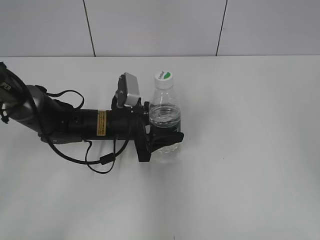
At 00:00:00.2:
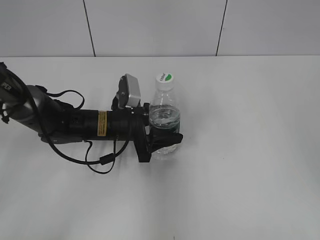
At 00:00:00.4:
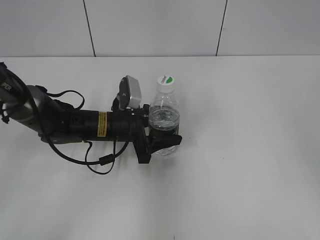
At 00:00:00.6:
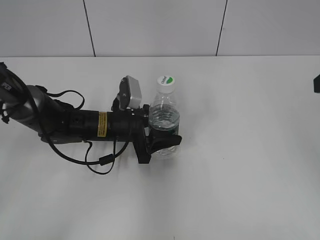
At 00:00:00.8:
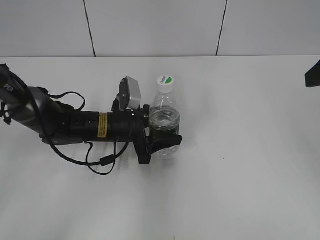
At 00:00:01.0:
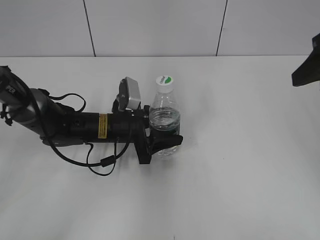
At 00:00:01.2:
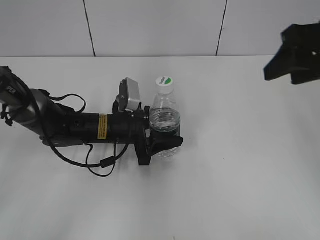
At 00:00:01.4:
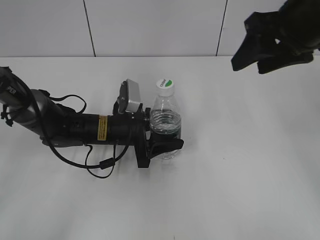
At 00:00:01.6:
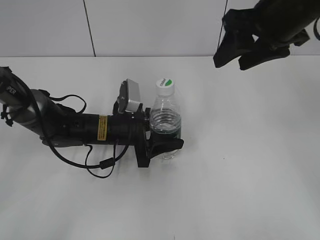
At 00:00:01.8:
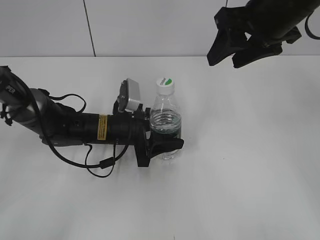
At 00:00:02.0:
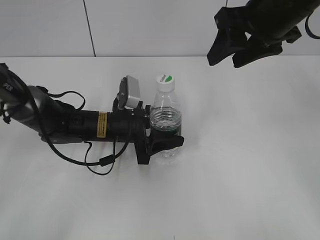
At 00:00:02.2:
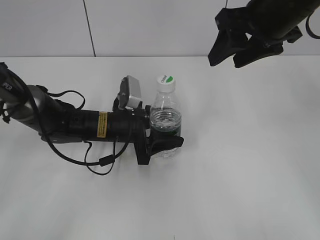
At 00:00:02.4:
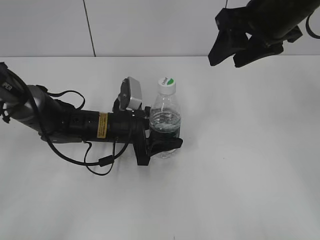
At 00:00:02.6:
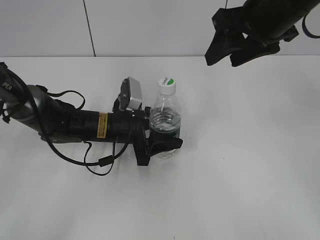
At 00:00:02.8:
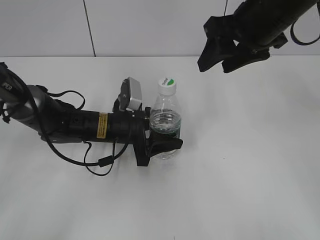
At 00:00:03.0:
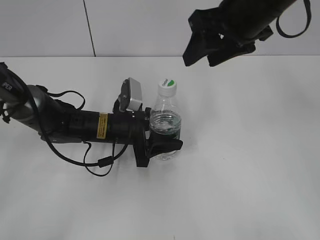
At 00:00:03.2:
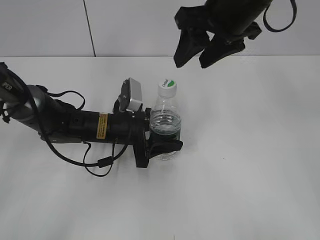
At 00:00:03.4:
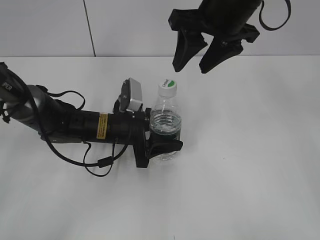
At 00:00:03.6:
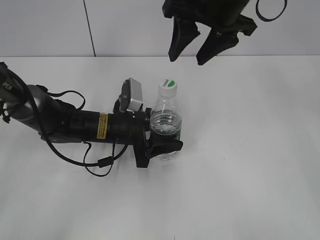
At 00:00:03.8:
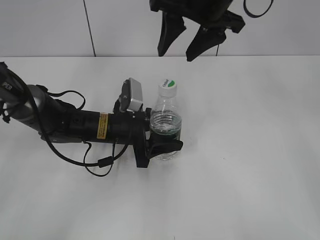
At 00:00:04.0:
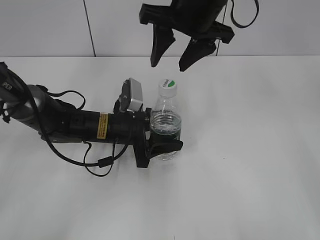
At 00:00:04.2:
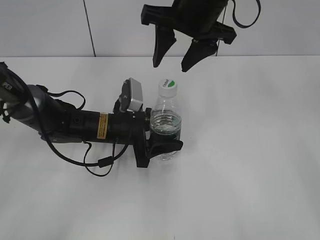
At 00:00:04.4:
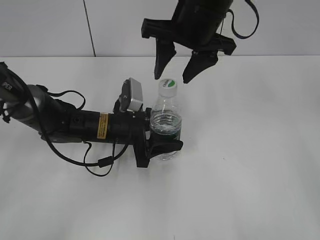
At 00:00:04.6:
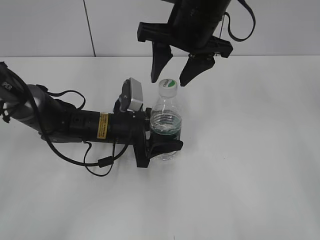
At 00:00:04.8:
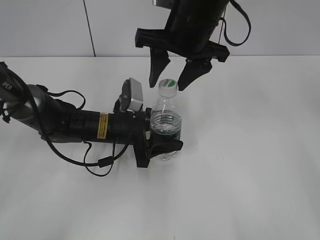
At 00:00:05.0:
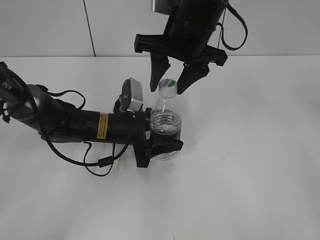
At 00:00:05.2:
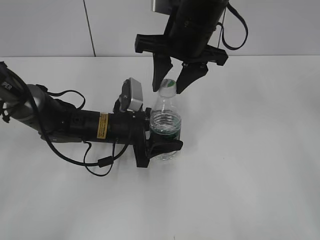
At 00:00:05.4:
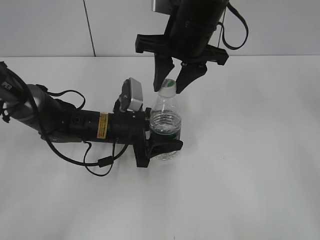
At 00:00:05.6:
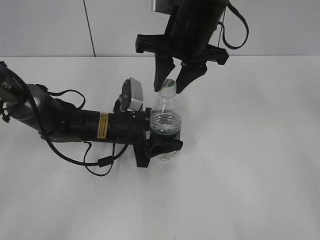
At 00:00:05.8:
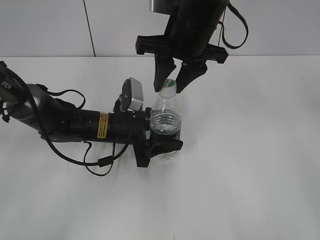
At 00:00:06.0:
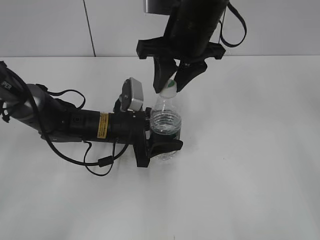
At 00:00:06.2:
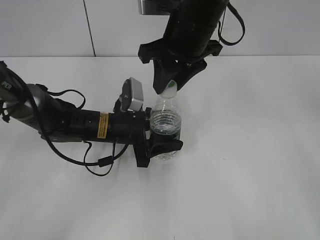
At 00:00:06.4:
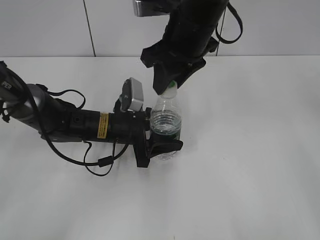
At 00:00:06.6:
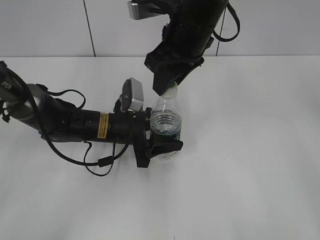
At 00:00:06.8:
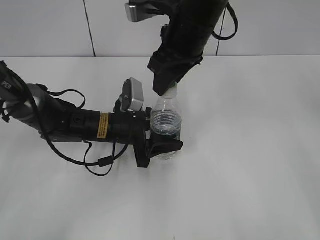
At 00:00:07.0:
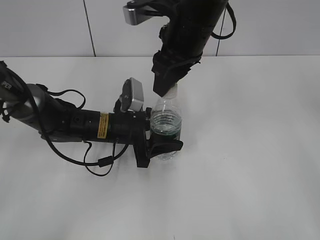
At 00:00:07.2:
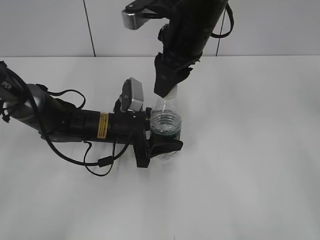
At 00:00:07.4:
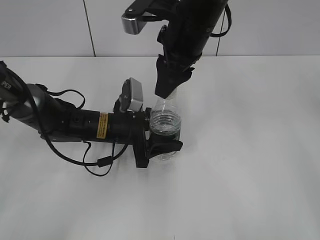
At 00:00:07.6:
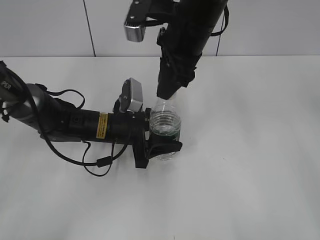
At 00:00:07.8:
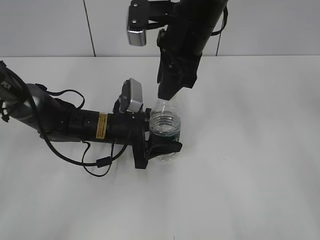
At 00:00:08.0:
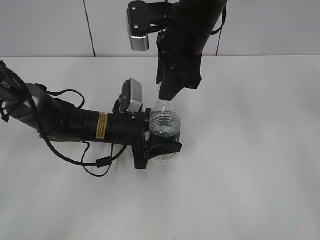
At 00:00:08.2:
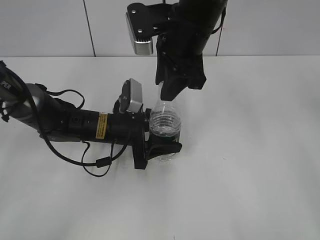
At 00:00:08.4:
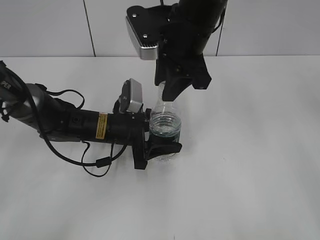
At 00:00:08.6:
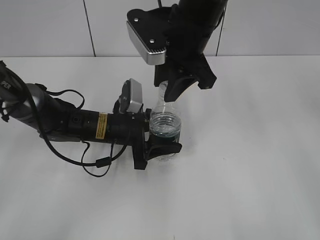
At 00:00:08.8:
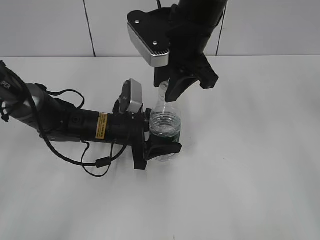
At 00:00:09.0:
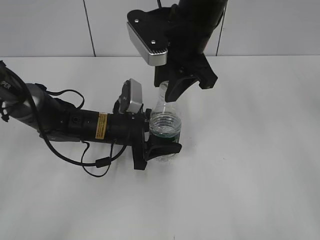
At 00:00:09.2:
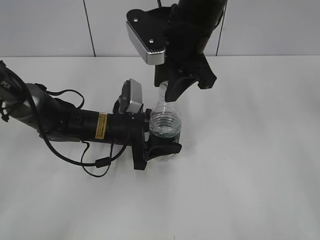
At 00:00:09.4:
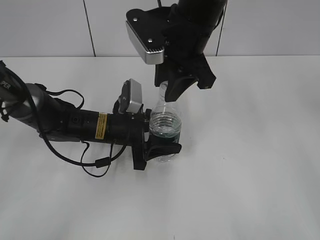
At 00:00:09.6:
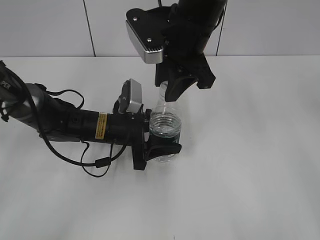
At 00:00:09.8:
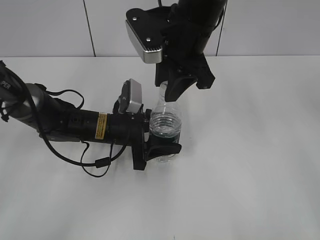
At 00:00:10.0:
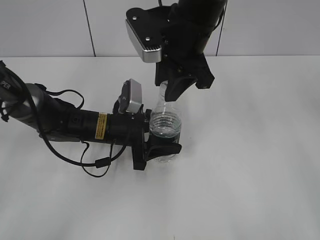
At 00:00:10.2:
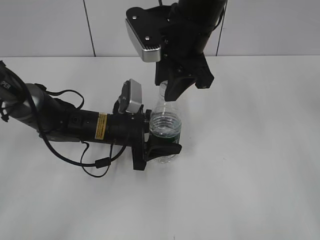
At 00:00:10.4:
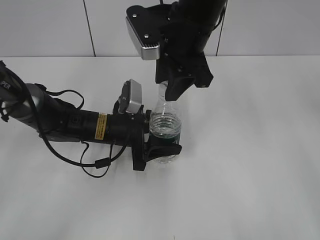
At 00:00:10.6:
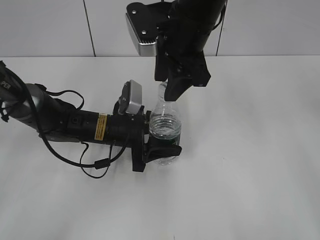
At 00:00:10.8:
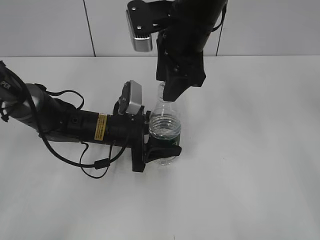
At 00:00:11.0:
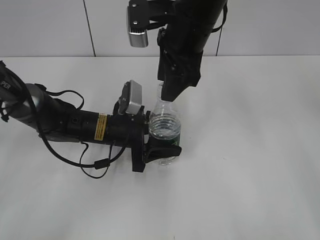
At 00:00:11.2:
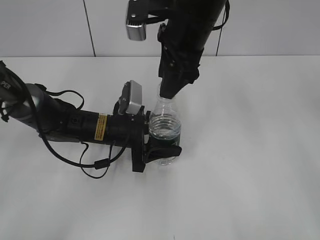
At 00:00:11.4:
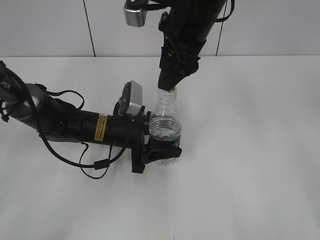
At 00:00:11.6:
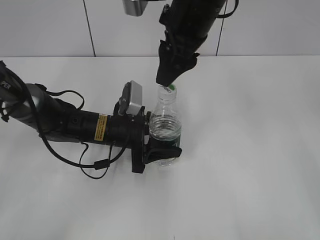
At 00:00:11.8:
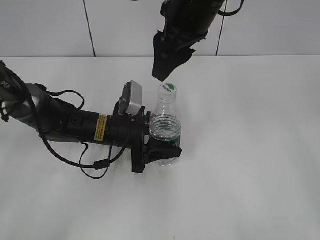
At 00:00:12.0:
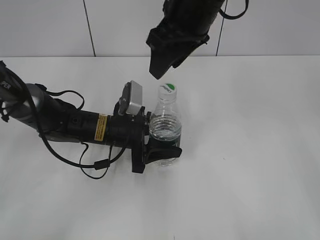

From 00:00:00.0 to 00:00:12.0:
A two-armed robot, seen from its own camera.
From 00:00:00.0 to 00:00:01.6: The right gripper travels forward and to the left by roughly 20 cm.
From 00:00:01.6 to 00:00:03.0: The grippers stay close to where they were, moving slightly.
From 00:00:03.0 to 00:00:04.4: The right gripper shifts about 5 cm to the left.
From 00:00:04.4 to 00:00:06.0: The right gripper closes up.
From 00:00:09.0 to 00:00:10.4: The grippers stay close to where they were, moving slightly.

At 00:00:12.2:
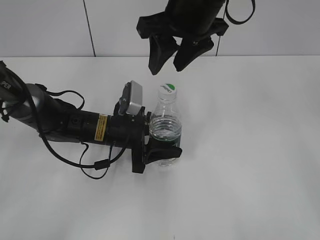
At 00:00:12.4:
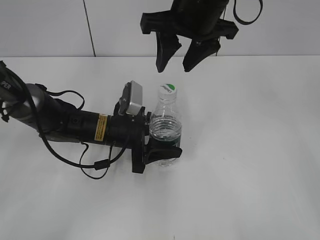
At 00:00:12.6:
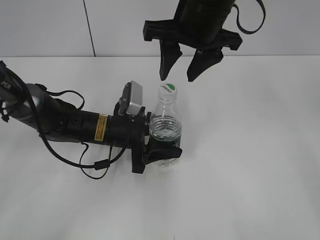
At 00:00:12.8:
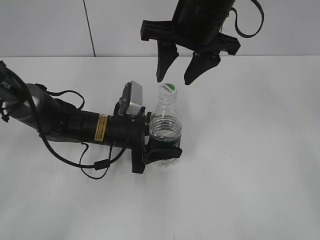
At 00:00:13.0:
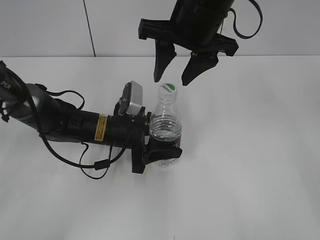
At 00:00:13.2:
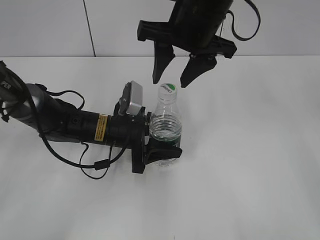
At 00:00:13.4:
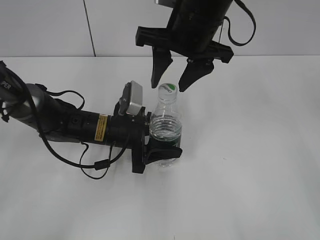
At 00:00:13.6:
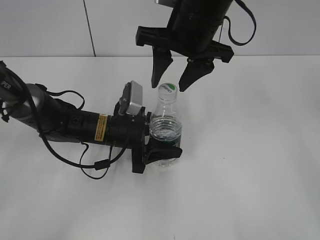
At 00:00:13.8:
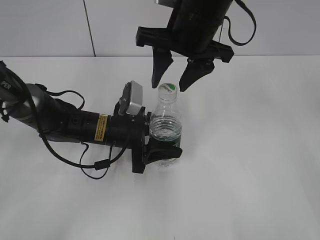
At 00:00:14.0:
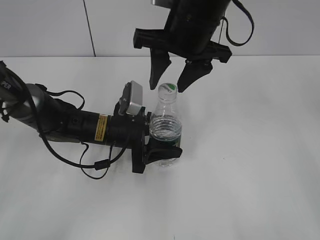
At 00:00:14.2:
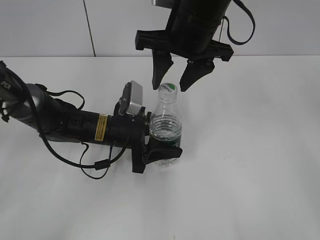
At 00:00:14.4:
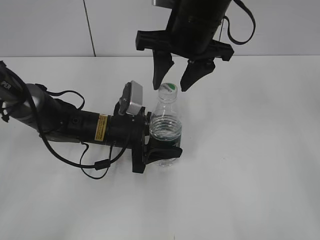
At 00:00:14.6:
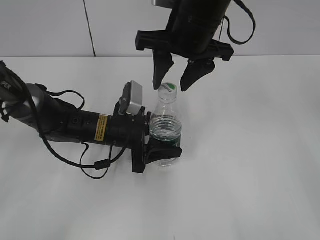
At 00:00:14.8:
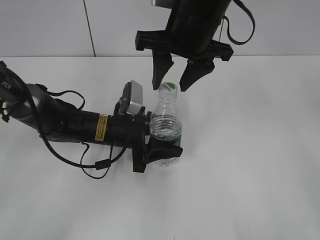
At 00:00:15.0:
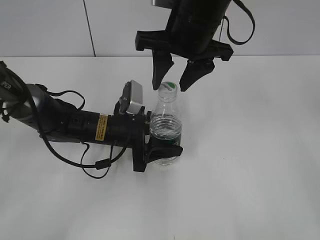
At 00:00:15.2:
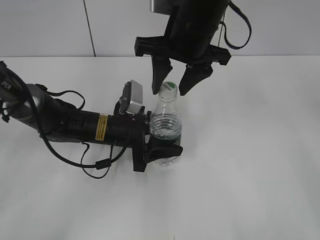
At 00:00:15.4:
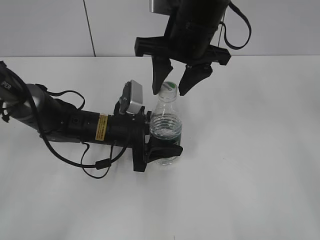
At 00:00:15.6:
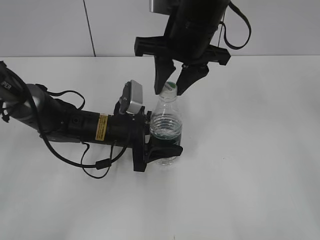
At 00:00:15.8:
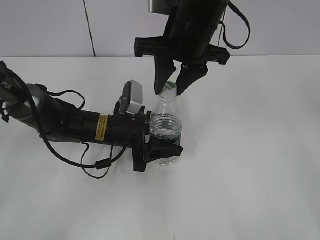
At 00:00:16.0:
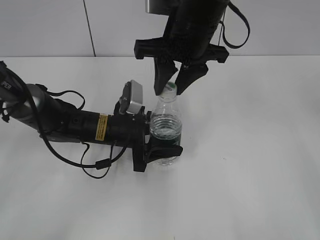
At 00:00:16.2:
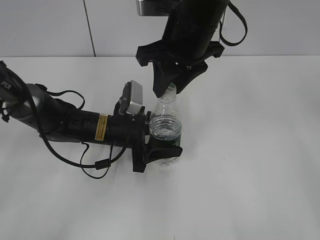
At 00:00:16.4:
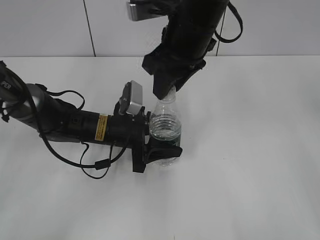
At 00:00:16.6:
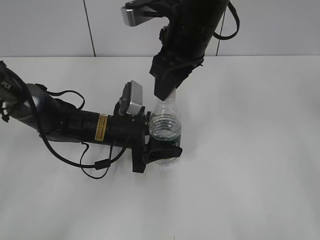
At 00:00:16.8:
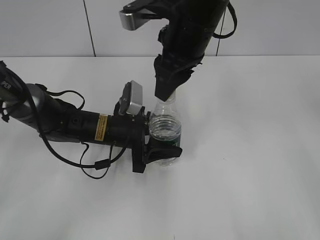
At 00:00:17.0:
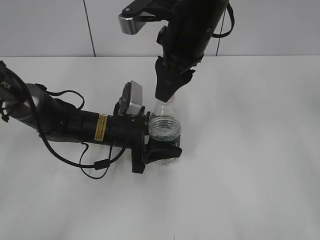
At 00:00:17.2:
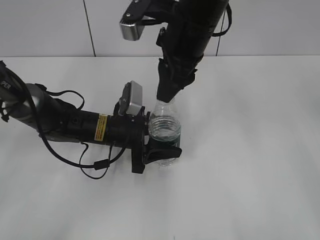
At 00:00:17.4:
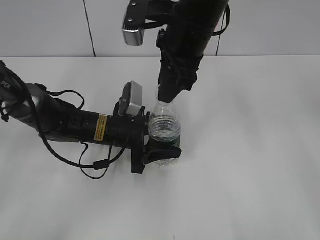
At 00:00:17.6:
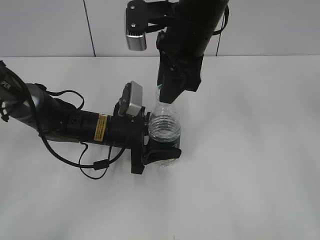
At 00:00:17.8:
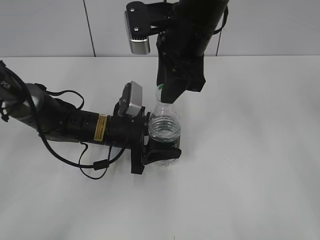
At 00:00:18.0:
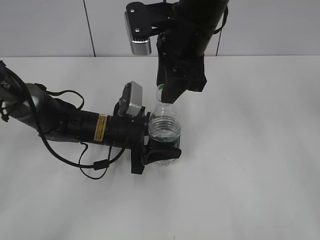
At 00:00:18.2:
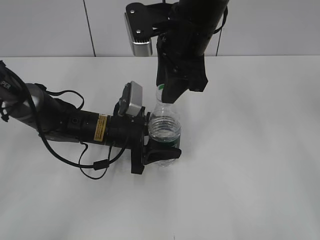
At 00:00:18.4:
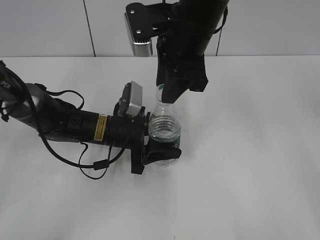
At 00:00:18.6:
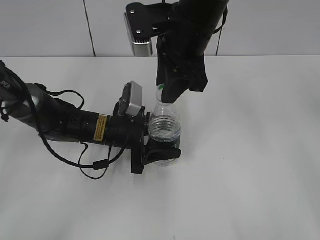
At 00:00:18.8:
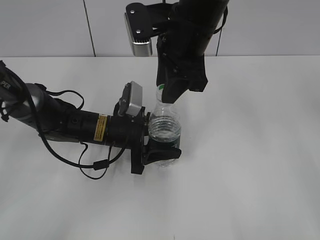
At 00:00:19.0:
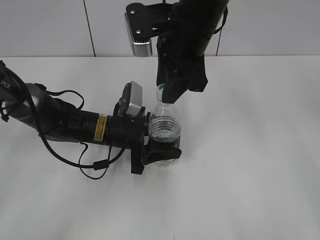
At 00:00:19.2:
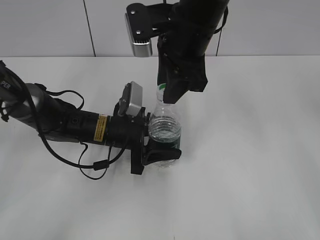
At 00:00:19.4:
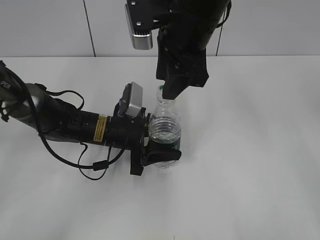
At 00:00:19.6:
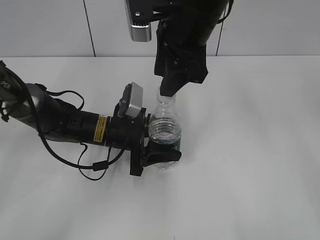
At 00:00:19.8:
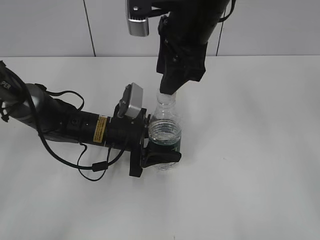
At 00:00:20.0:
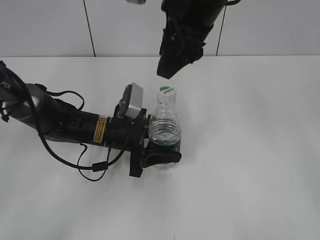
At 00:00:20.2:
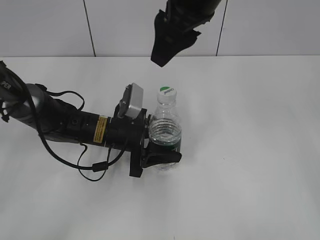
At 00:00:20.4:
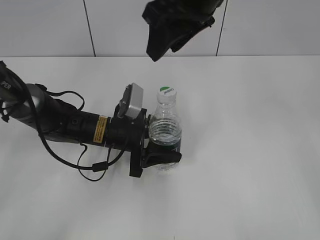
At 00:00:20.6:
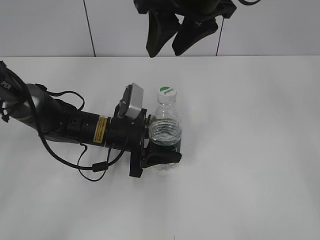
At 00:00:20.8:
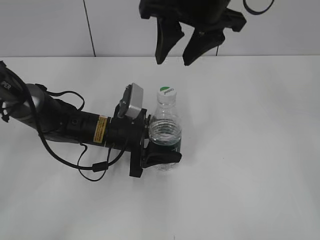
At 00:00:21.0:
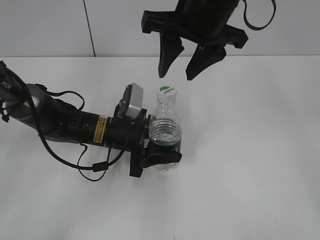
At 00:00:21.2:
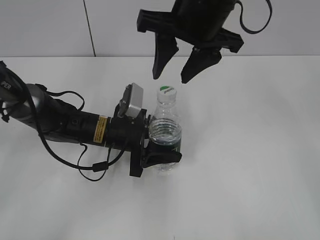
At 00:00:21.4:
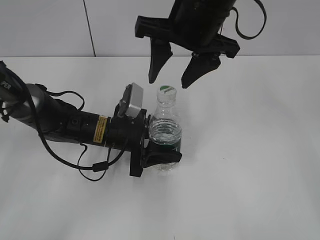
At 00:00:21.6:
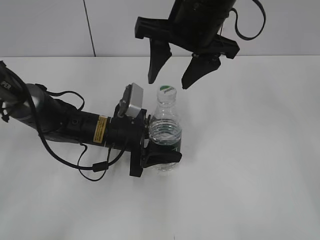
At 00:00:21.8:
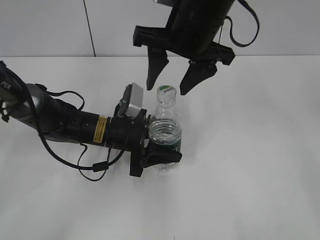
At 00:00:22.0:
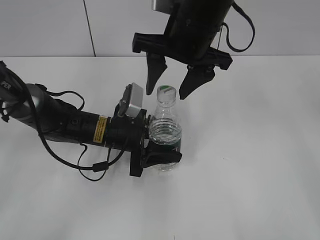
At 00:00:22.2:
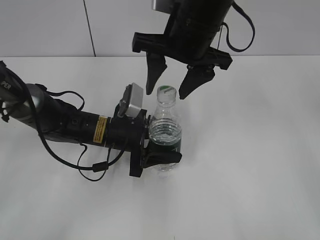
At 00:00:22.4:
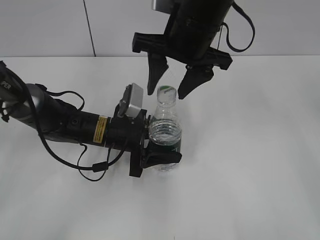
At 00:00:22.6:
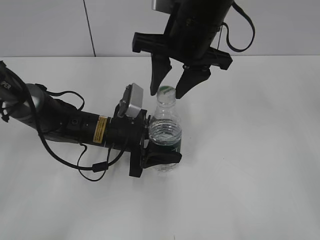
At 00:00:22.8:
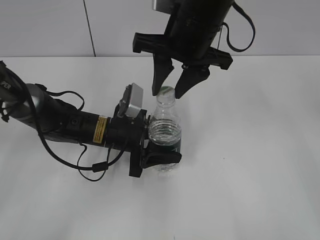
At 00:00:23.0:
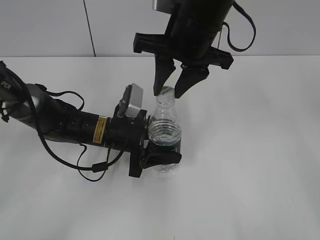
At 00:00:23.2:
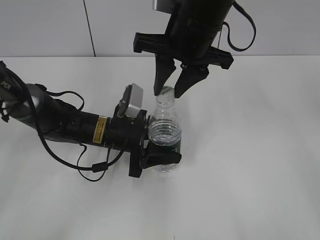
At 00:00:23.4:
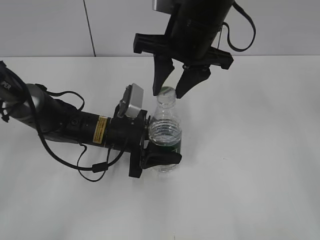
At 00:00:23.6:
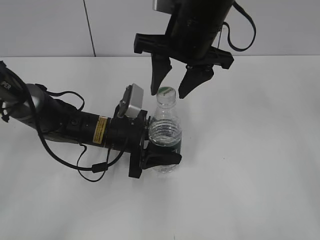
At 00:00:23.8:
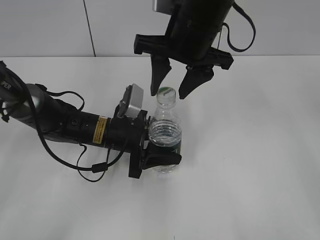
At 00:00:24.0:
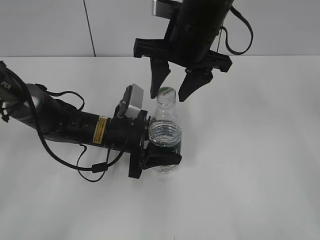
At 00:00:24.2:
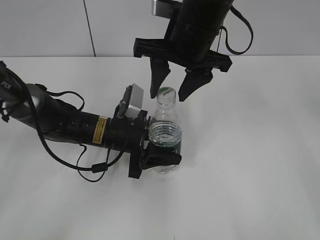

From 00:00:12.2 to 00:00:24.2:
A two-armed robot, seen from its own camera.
From 00:00:13.8 to 00:00:15.2: Both grippers stay put.
From 00:00:15.2 to 00:00:16.6: The right gripper closes.
From 00:00:18.2 to 00:00:19.8: The right gripper opens its fingers.
From 00:00:21.2 to 00:00:22.6: The right gripper opens and closes again.
From 00:00:22.6 to 00:00:24.2: The right gripper closes, then reopens.
